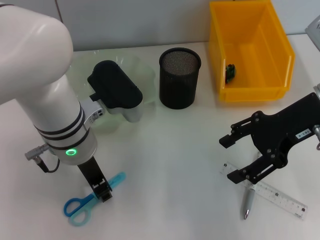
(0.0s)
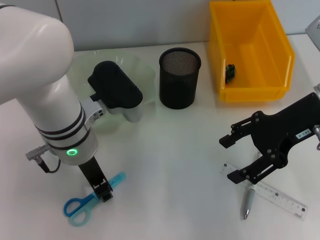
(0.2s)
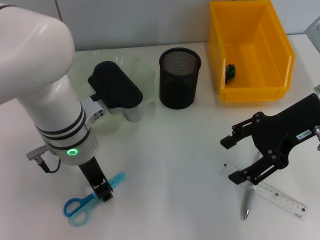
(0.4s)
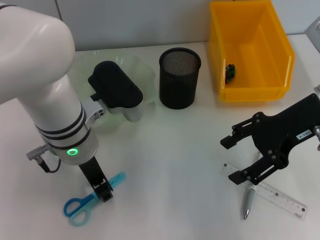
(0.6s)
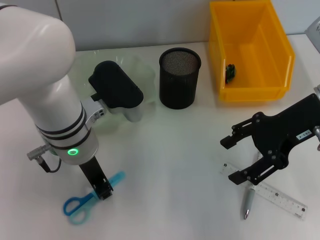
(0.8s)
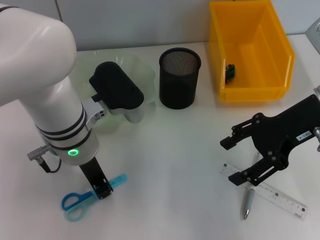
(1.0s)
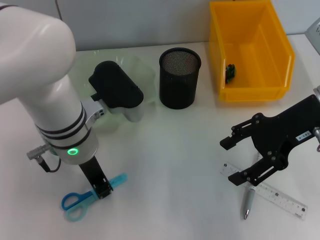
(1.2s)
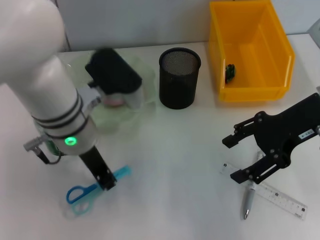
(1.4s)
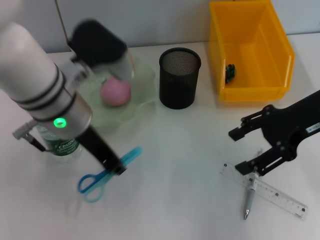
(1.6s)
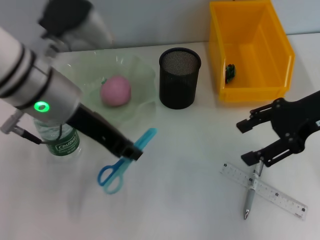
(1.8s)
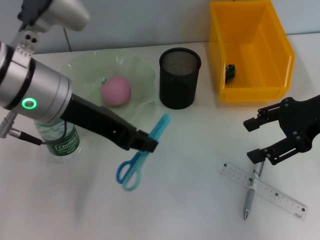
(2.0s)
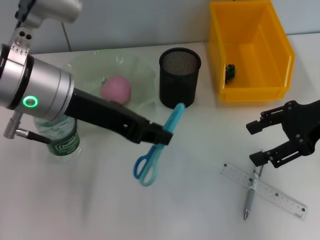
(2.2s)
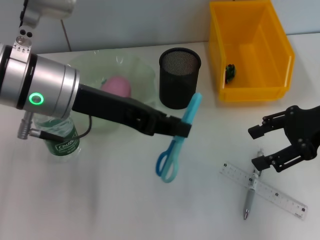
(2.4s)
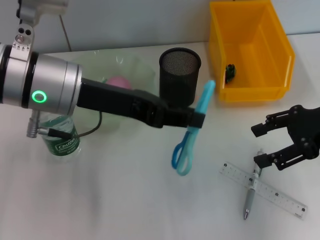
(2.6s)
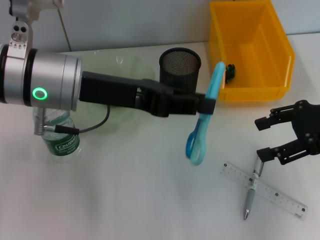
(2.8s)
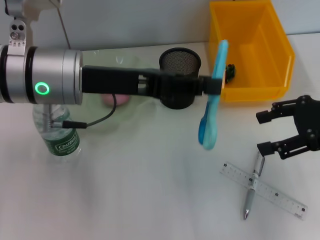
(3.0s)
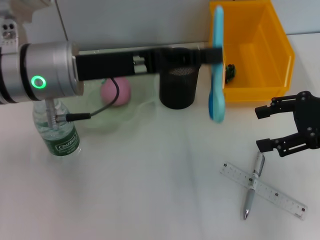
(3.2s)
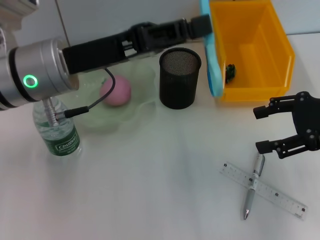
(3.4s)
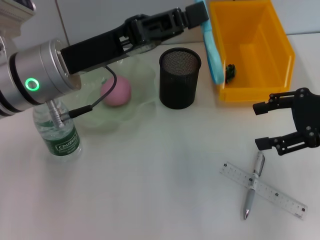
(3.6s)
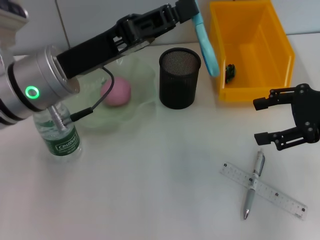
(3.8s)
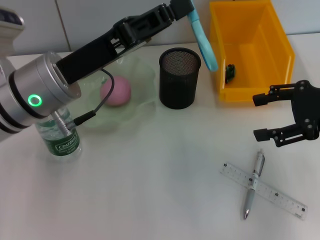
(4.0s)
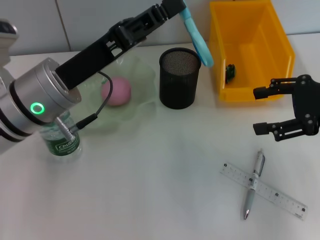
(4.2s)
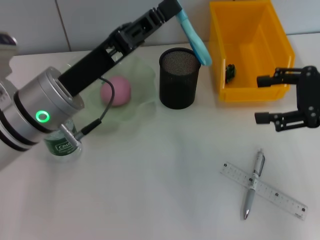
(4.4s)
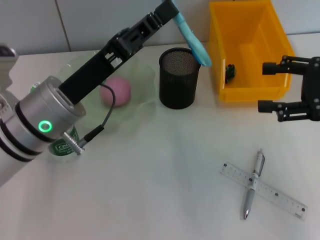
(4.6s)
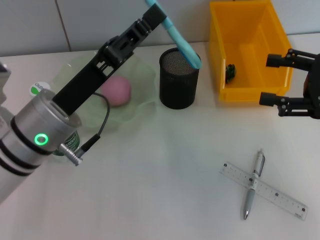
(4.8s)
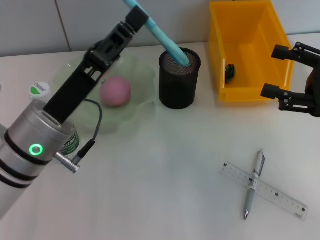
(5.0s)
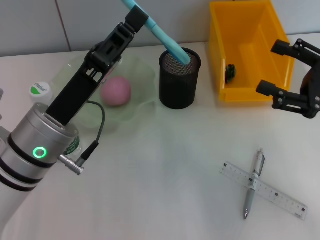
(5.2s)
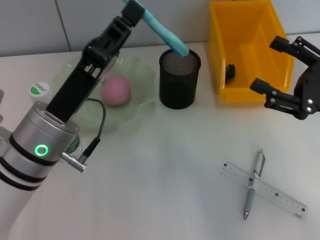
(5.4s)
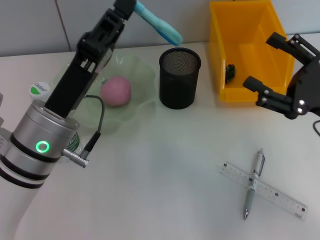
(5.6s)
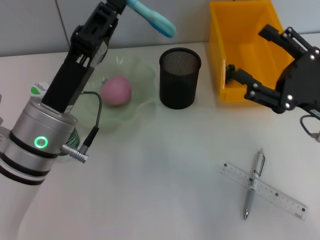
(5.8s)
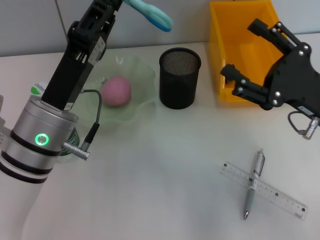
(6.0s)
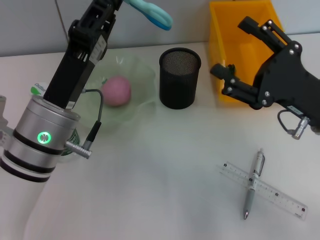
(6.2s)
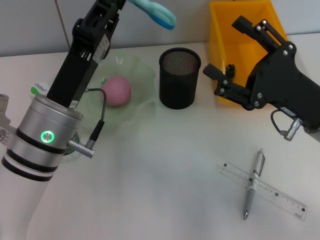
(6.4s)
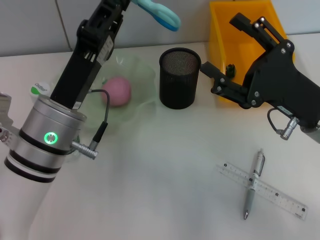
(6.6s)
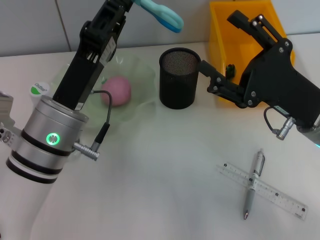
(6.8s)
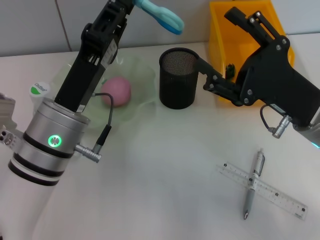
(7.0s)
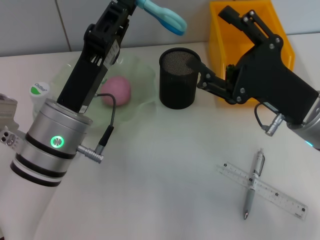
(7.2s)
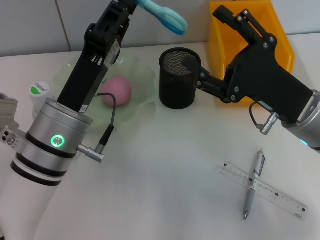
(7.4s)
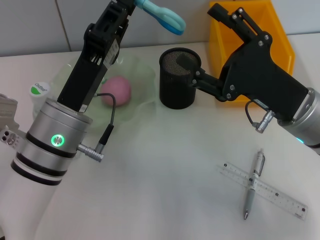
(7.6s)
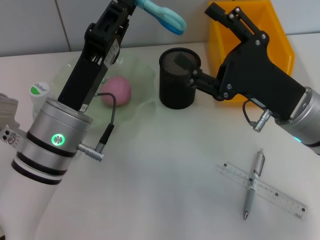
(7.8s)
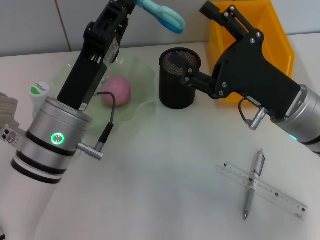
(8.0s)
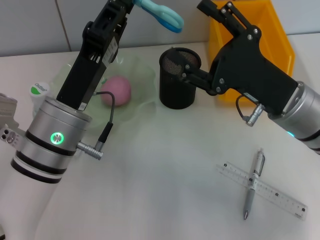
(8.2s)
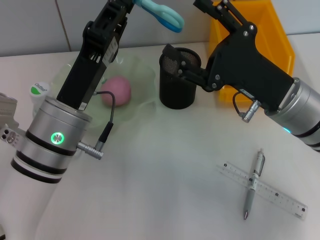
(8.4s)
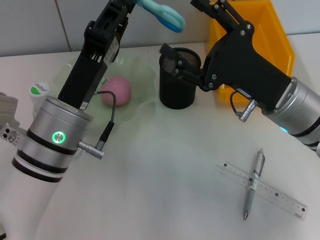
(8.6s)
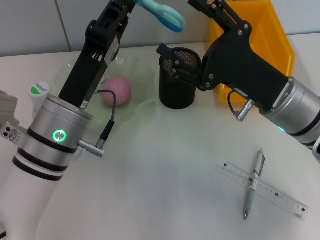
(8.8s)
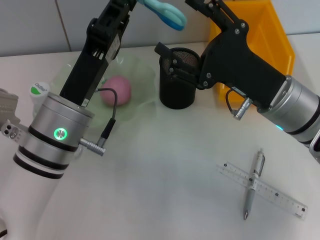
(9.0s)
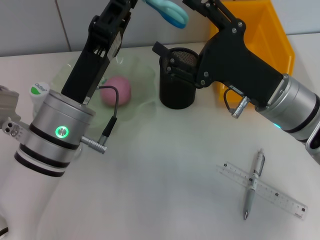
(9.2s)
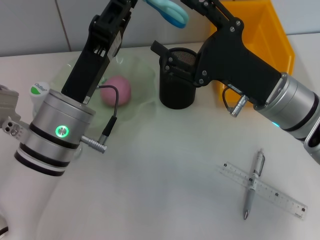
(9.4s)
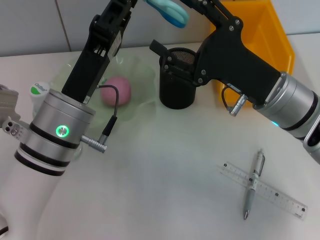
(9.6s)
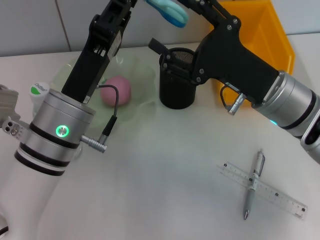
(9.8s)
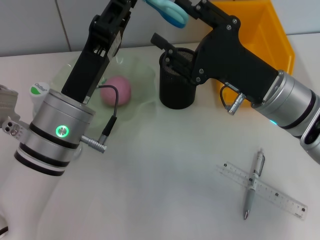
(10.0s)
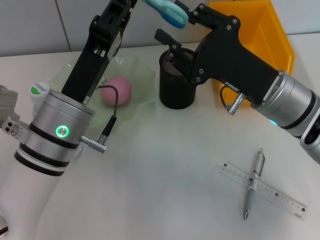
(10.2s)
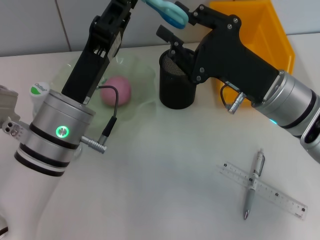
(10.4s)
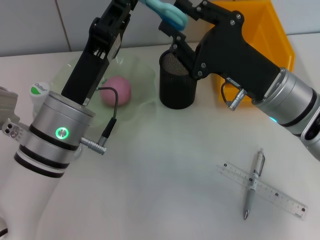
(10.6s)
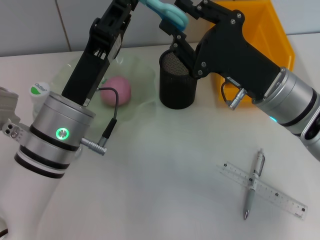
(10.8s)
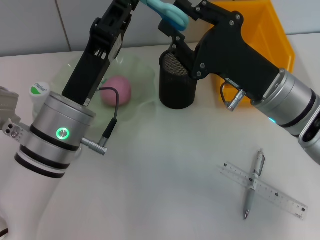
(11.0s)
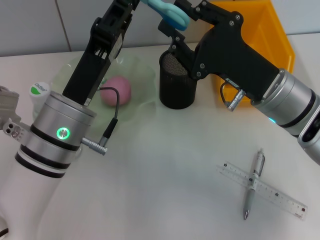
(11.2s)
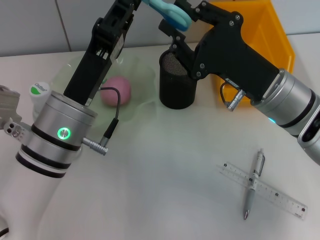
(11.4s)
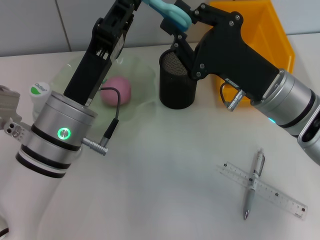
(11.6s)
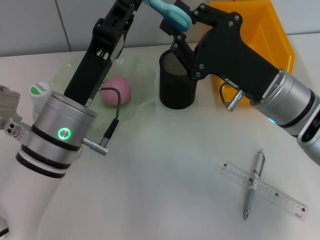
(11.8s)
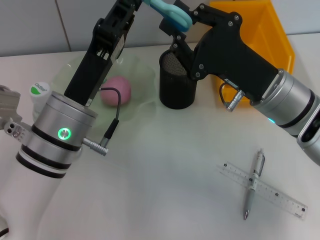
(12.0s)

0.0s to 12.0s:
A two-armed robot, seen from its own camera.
0.0s to 1.6s: The left gripper goes roughly 5 cm upward.
1.6s to 3.0s: The right gripper goes approximately 5 cm to the right.
3.0s to 4.4s: The left gripper travels downward by approximately 5 cm.
4.4s to 6.0s: The right gripper heads downward and to the left, covering roughly 10 cm.
6.0s to 7.6s: The right gripper travels to the left by roughly 5 cm.
7.6s to 9.0s: There are only small adjustments of the grippers.
9.0s to 10.4s: The right gripper closes.
10.4s to 12.0s: Both grippers stay about where they are.

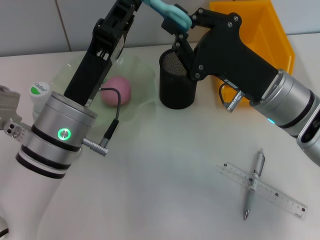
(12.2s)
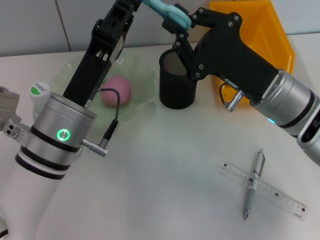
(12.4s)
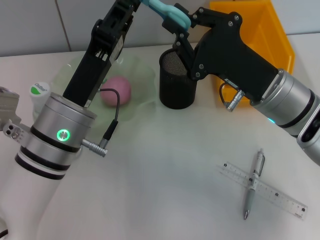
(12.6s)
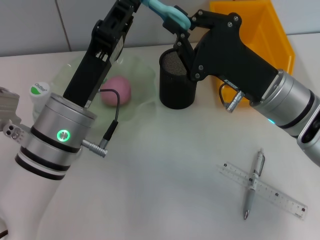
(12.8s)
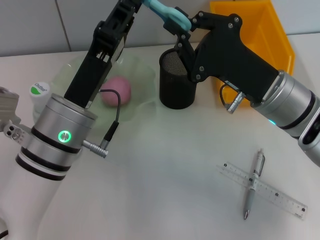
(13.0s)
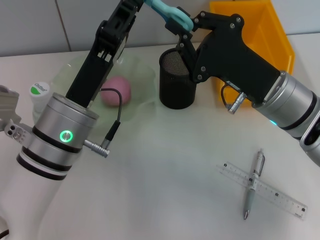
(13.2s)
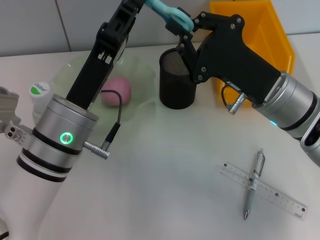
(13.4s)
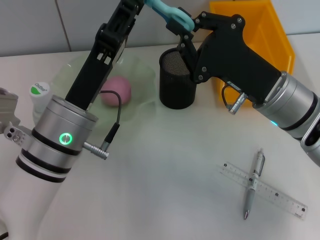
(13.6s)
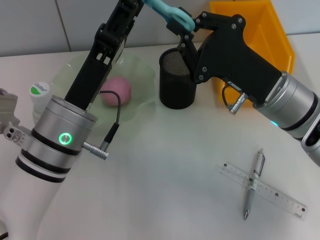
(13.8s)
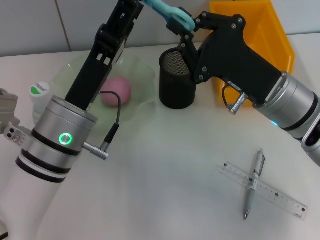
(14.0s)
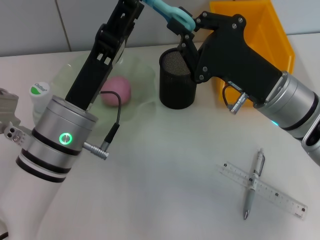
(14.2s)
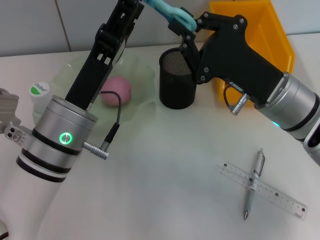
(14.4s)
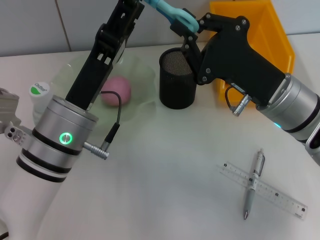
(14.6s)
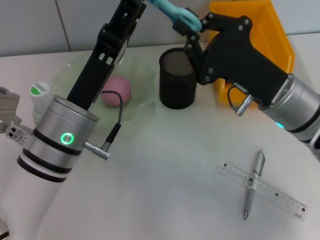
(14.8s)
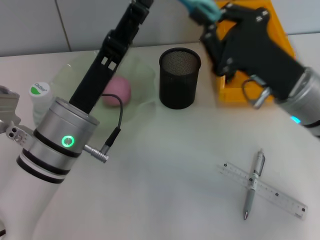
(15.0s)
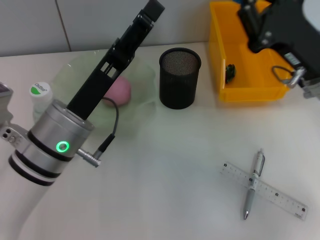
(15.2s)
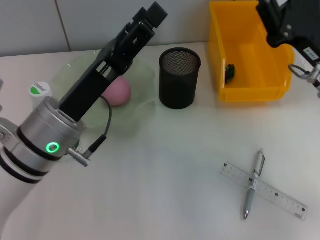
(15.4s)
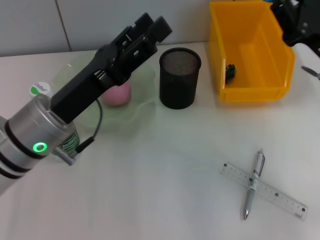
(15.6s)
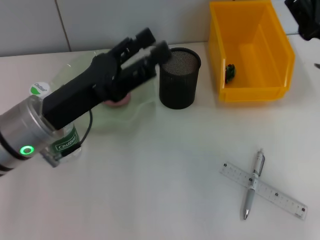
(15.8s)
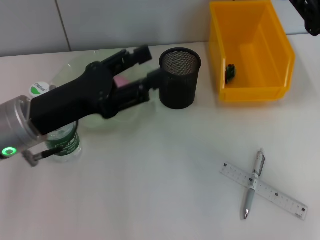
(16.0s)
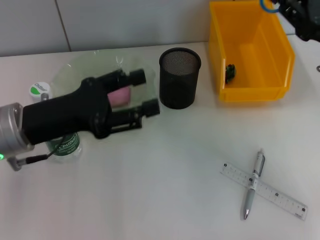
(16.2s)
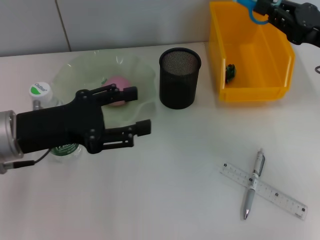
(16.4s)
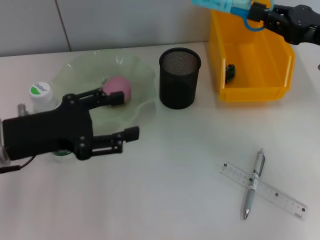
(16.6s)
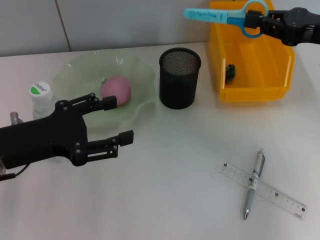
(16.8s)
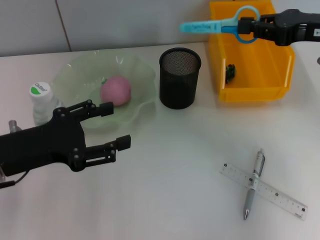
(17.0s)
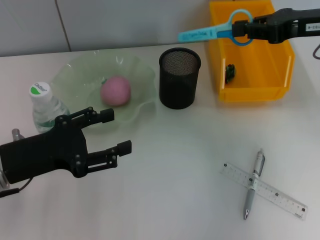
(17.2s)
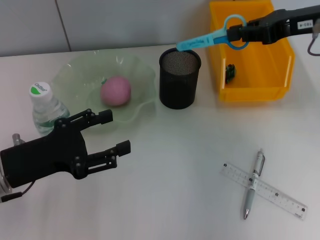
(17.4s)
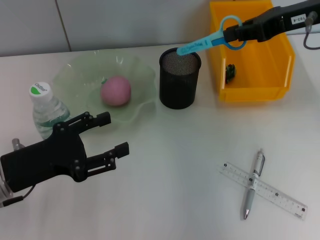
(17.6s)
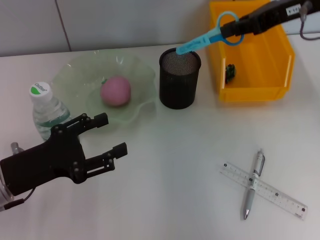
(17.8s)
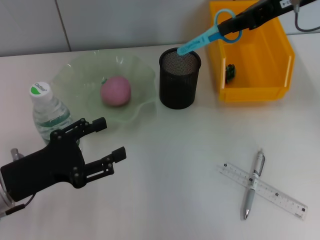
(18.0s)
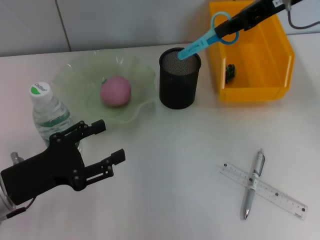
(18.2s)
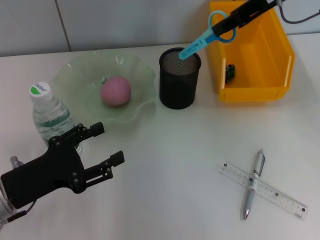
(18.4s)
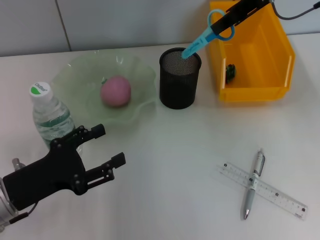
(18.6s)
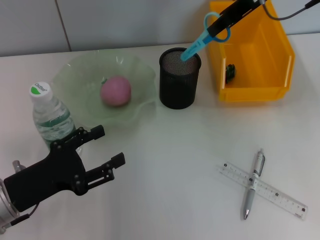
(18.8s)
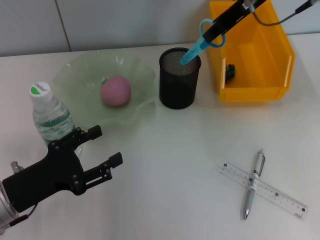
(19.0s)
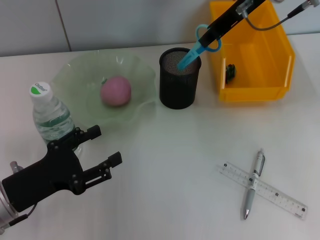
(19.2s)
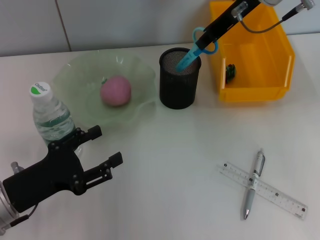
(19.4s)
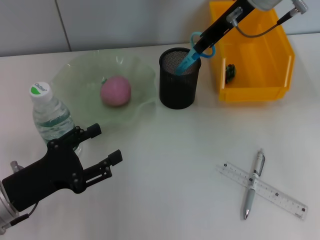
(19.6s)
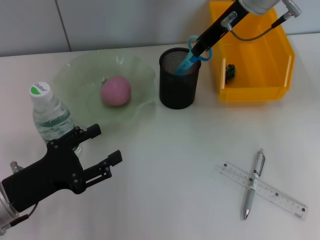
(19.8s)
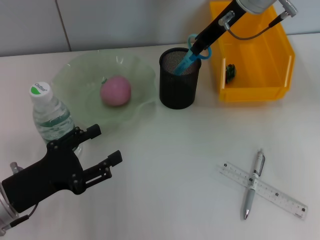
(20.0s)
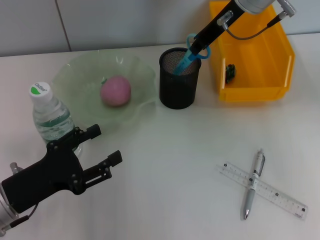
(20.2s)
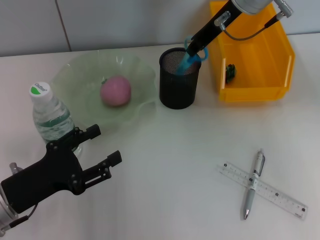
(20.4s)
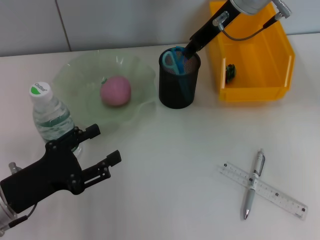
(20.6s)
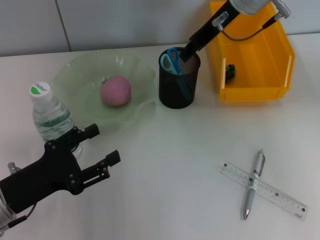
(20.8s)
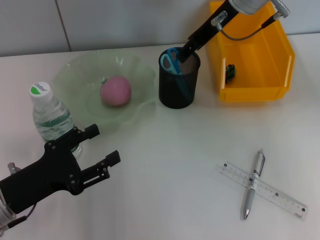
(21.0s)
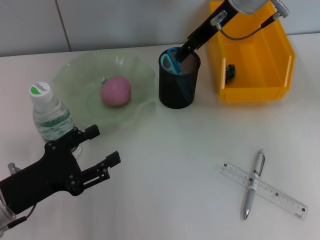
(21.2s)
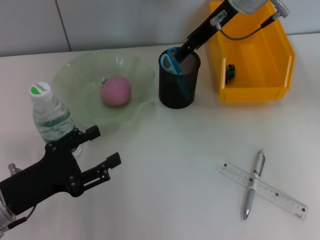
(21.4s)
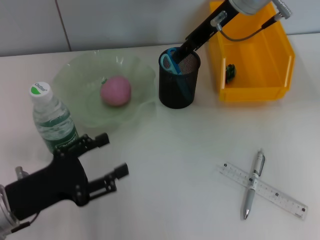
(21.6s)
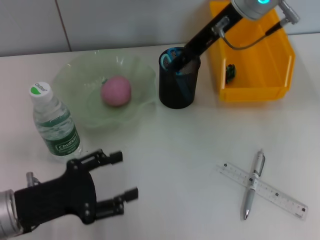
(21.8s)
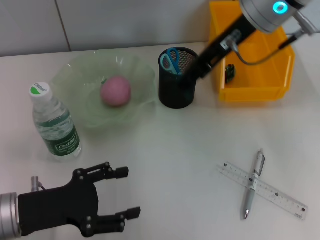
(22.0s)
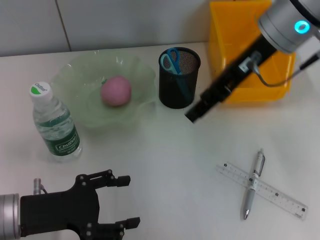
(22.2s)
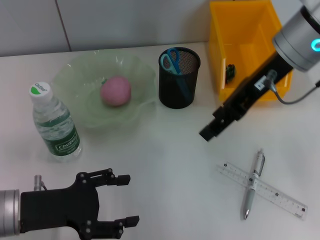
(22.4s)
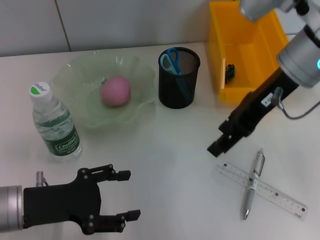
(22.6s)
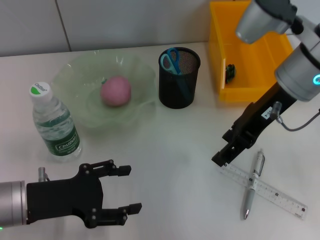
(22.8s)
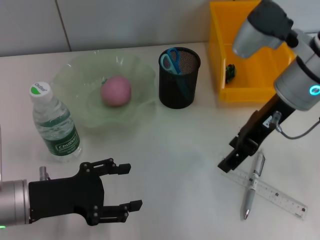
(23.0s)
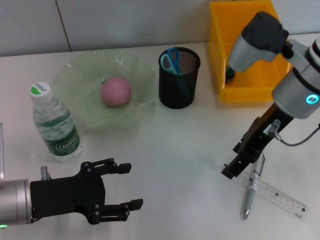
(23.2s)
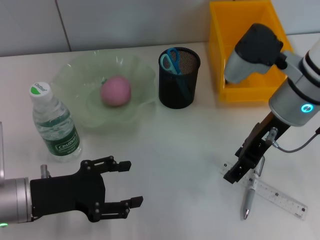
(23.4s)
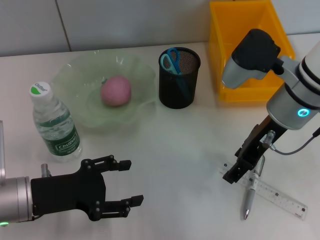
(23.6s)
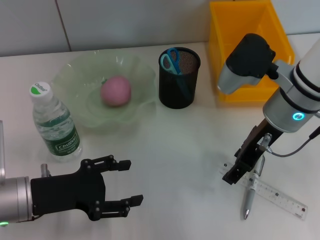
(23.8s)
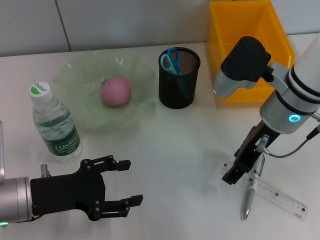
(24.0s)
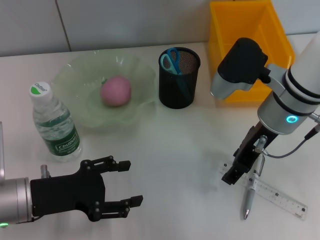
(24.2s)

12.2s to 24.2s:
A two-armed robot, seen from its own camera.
Step, 12.2s to 15.4s: Pass the blue scissors from the left hand to the right hand.
Step, 15.6s to 21.2s: Place the blue scissors into the pen holder with the right hand.
12.2s to 13.8s: Both grippers stay put.
13.8s to 15.2s: The left gripper opens its fingers. The right gripper heads to the right, covering approximately 5 cm.
15.2s to 16.6s: The left gripper goes roughly 10 cm to the left. The right gripper heads to the right, covering about 5 cm.
16.6s to 18.2s: The right gripper heads upward, to the left and forward, covering roughly 15 cm; the left gripper travels downward by approximately 5 cm.
18.2s to 19.8s: The right gripper is displaced to the left by some 5 cm.
19.8s to 21.2s: The right gripper opens up.
21.2s to 22.6s: The right gripper is displaced backward by approximately 10 cm.
22.6s to 24.2s: The right gripper travels downward by some 5 cm.
